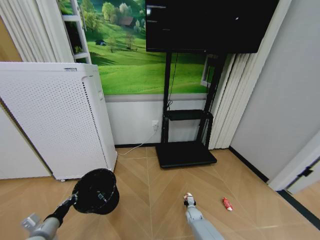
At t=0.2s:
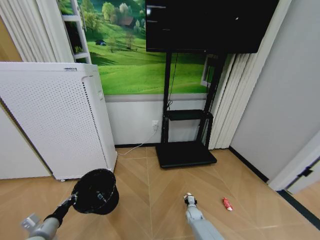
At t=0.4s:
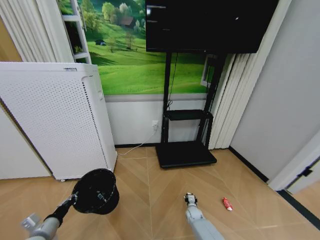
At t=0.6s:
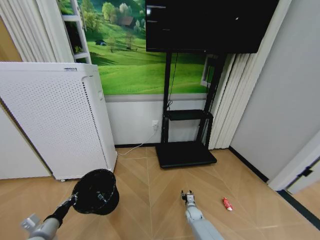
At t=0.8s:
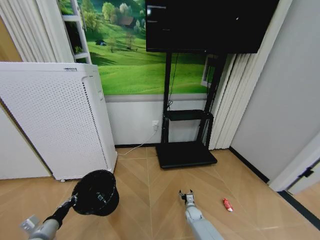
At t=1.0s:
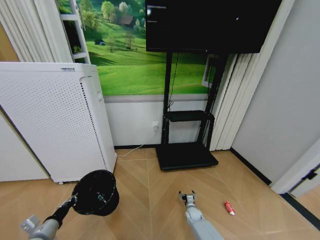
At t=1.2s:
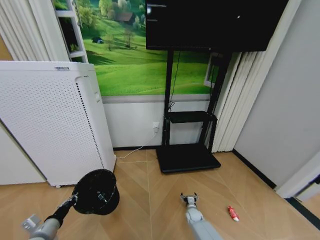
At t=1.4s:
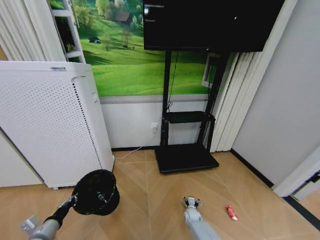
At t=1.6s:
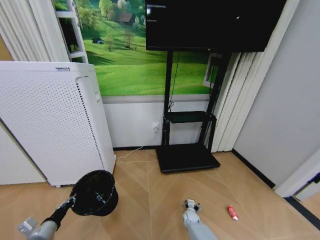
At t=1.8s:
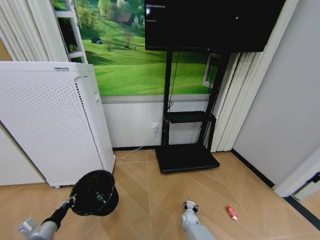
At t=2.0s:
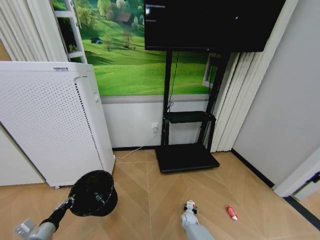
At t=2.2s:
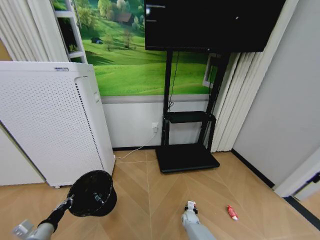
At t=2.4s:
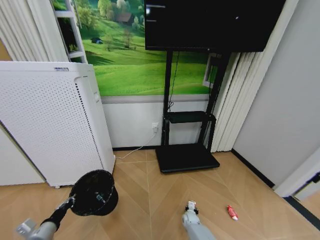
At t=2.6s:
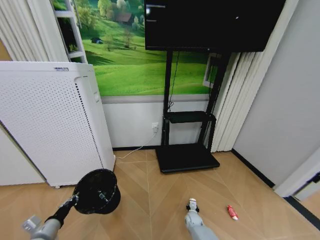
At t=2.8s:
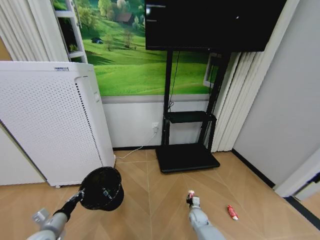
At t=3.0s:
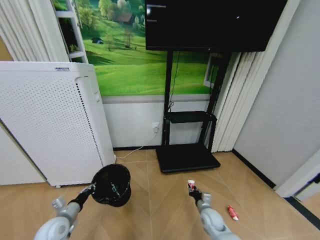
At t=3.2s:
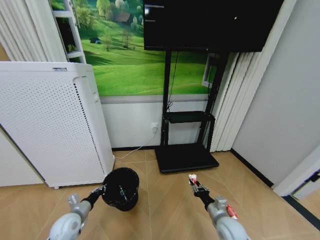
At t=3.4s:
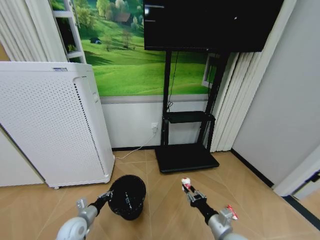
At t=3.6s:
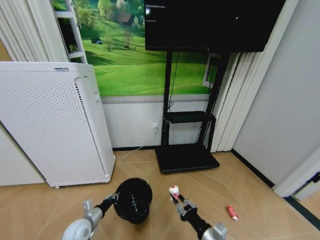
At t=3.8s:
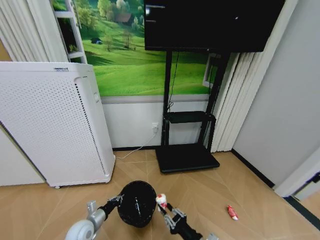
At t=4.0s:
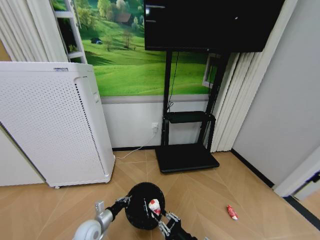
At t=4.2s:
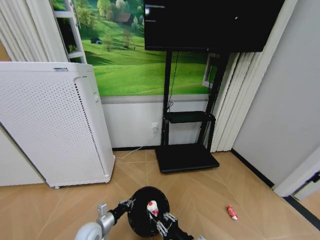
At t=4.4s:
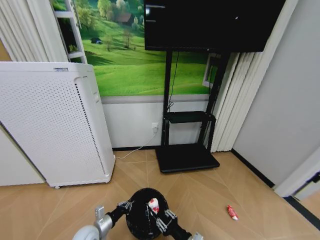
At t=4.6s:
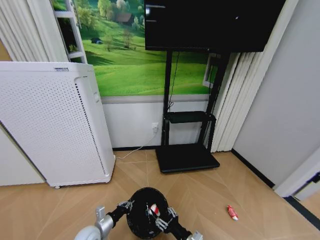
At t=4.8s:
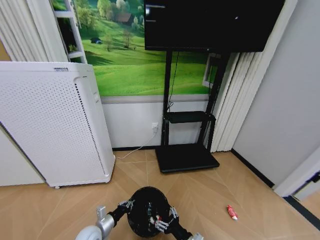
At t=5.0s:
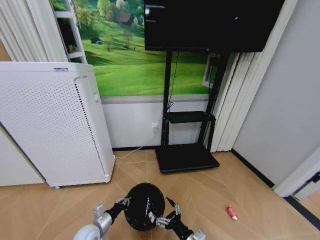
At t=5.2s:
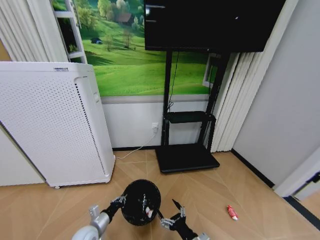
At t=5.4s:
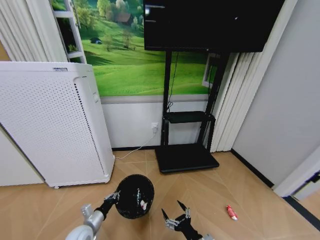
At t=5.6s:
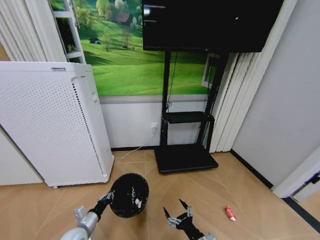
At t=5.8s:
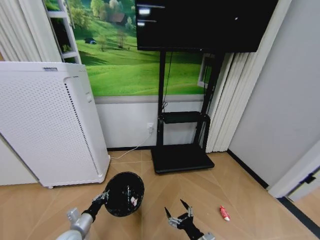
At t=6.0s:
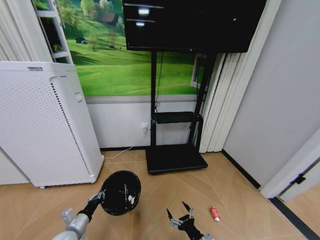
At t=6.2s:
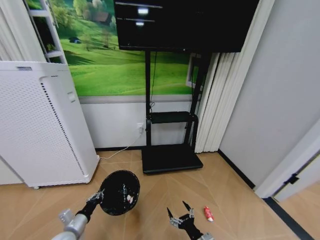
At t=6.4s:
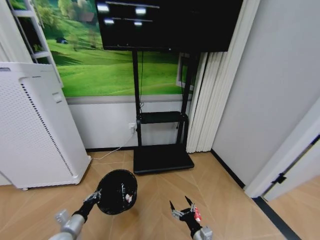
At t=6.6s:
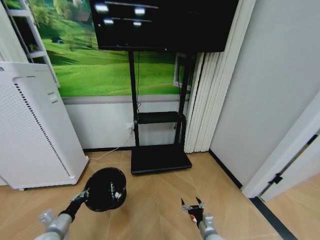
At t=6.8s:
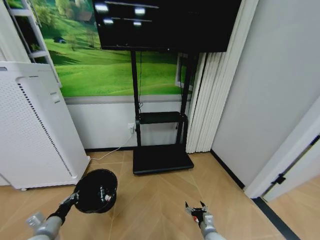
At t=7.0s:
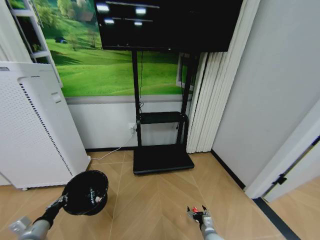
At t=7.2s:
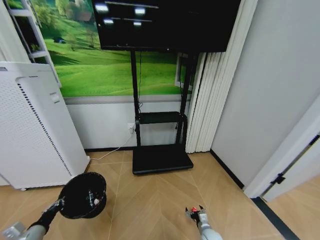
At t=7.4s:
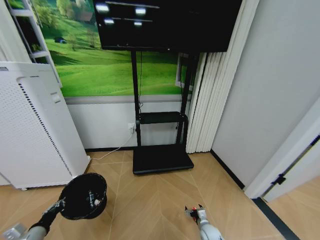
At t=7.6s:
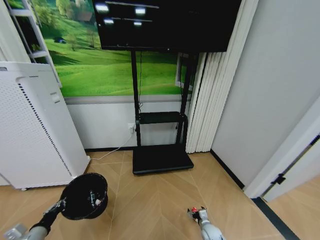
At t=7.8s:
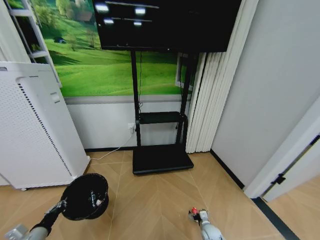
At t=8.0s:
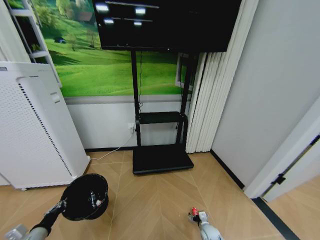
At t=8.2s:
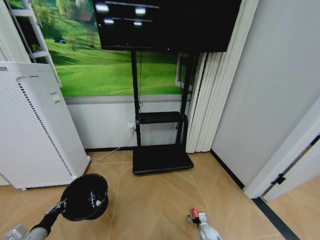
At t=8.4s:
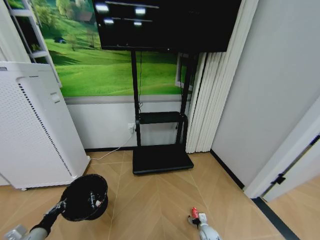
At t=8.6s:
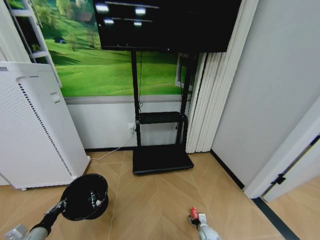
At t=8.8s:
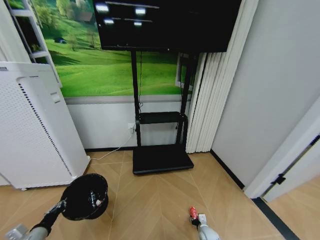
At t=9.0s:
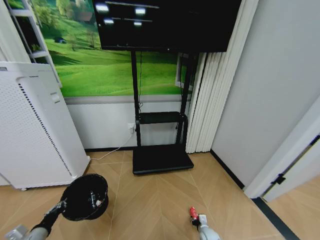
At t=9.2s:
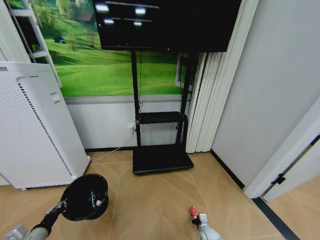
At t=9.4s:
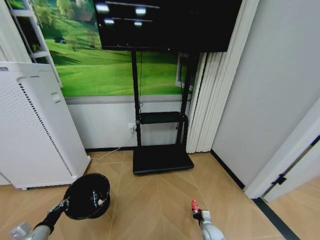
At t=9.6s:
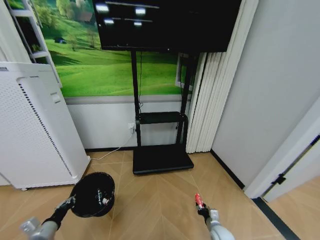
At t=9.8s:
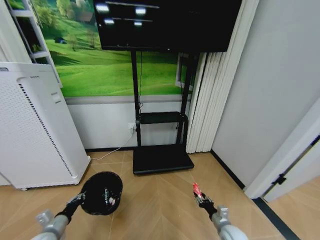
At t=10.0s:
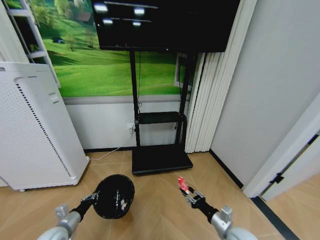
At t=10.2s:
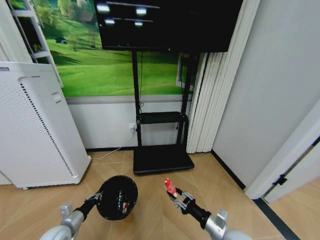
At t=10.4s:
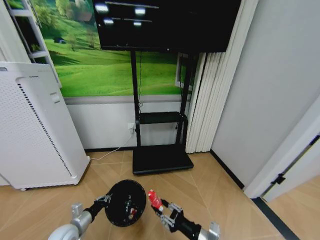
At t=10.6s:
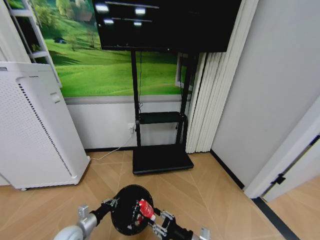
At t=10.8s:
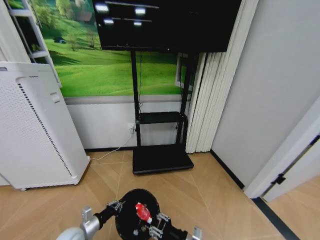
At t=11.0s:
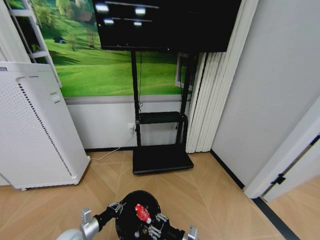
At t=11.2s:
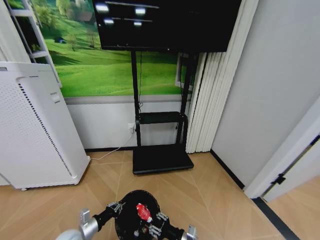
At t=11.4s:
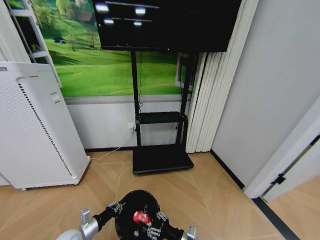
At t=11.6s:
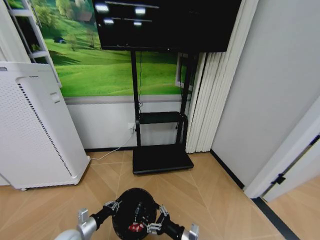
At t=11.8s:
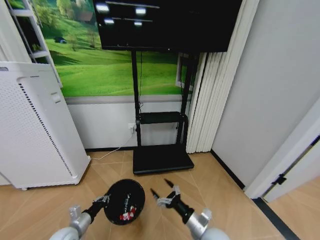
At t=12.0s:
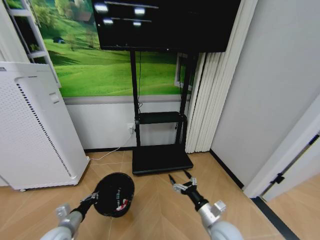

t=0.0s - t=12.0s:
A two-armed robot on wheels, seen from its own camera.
Task of the whole recording: Pick up the trash bin and place the garbage on the floor into it.
t=0.0s - t=1.6s: The right gripper opens its fingers.
t=1.6s - t=3.0s: The right gripper shifts about 15 cm upward, and closes its fingers, while the left gripper travels forward by about 5 cm.
t=3.0s - t=4.4s: The left gripper moves to the right and downward, roughly 15 cm, while the right gripper travels backward, upward and to the left by some 20 cm.
t=4.4s - t=6.0s: The right gripper opens its fingers. Meanwhile the left gripper is displaced to the left by roughly 5 cm.
t=6.0s - t=7.6s: The right gripper moves downward, forward and to the right, about 25 cm, while the left gripper moves to the left, some 10 cm.
t=9.0s - t=10.4s: The left gripper is displaced to the right and forward by roughly 10 cm, while the right gripper shifts approximately 30 cm upward.
t=10.4s - t=12.0s: The right gripper reaches some 10 cm downward, then returns, and opens.

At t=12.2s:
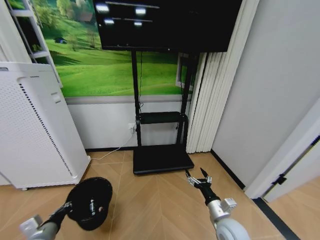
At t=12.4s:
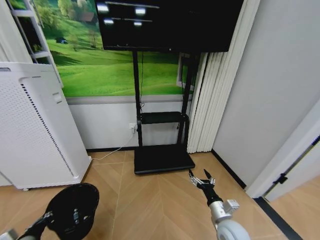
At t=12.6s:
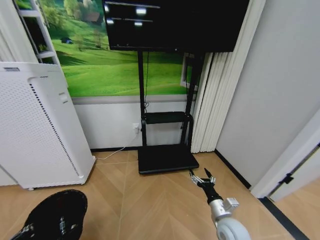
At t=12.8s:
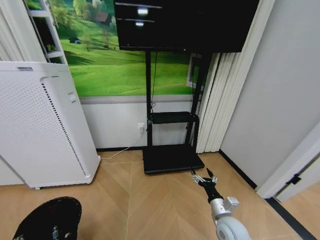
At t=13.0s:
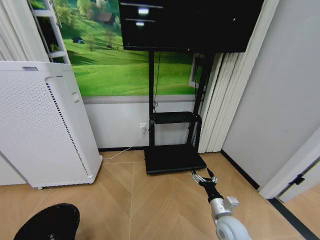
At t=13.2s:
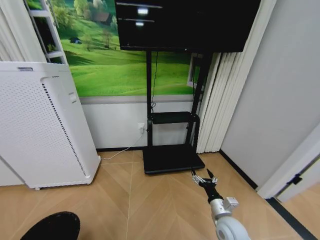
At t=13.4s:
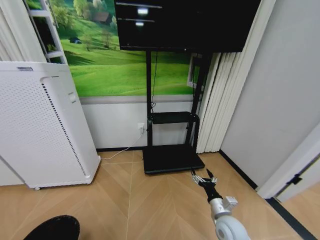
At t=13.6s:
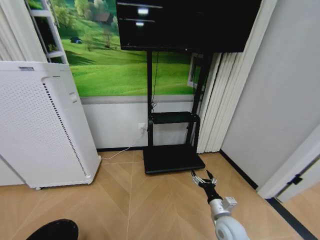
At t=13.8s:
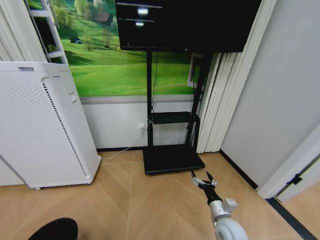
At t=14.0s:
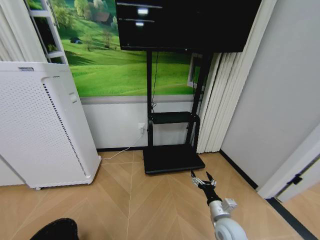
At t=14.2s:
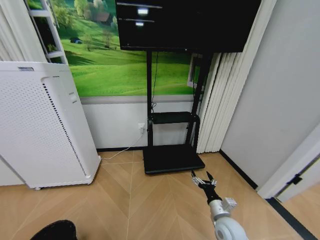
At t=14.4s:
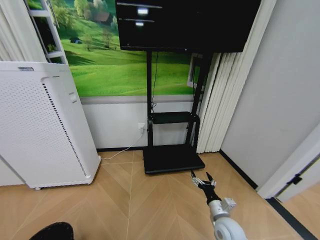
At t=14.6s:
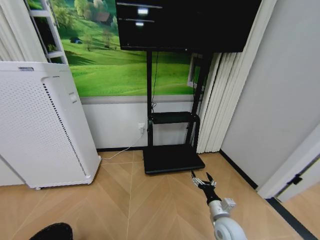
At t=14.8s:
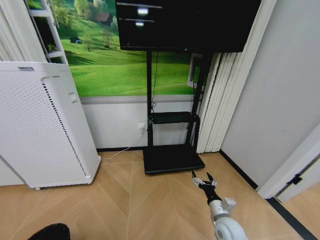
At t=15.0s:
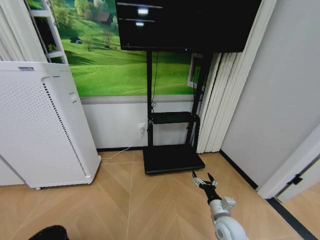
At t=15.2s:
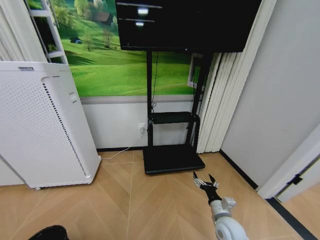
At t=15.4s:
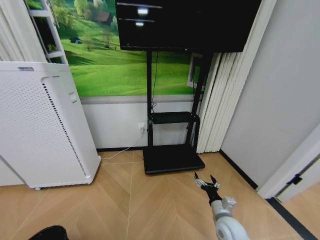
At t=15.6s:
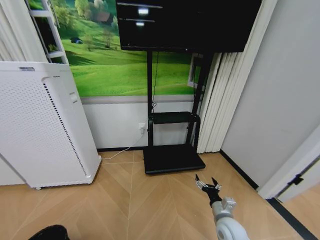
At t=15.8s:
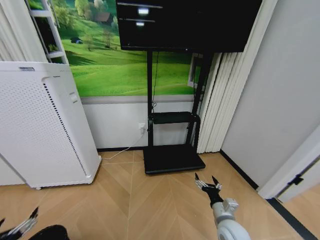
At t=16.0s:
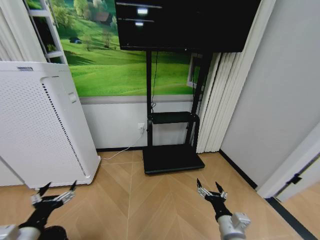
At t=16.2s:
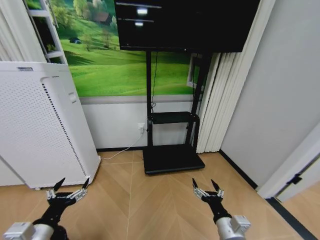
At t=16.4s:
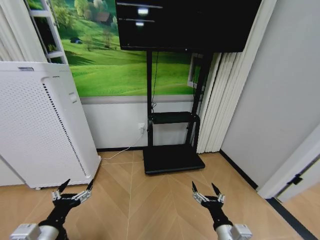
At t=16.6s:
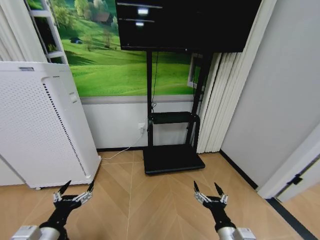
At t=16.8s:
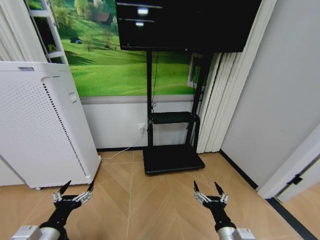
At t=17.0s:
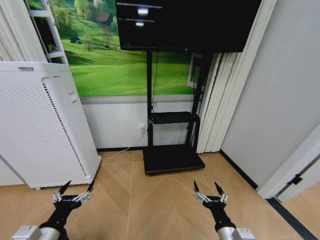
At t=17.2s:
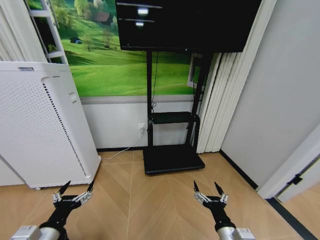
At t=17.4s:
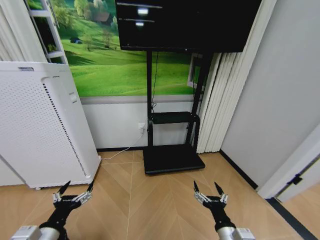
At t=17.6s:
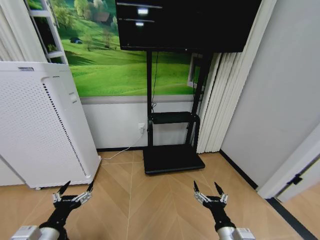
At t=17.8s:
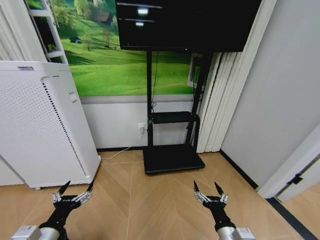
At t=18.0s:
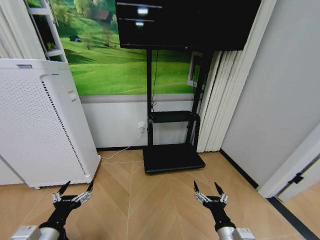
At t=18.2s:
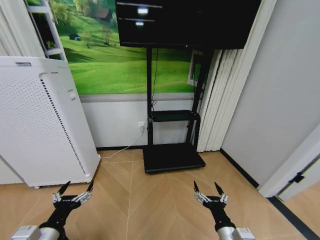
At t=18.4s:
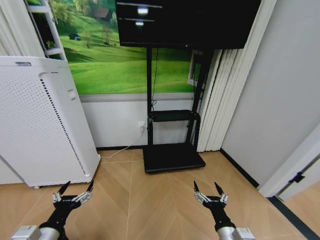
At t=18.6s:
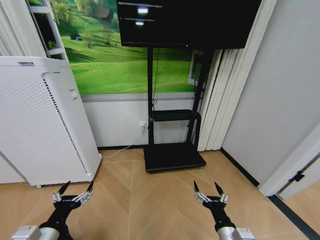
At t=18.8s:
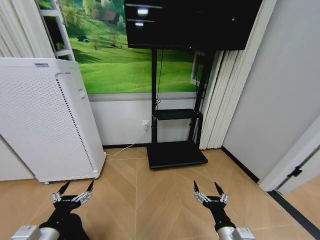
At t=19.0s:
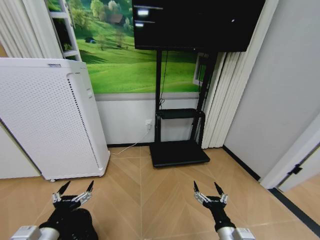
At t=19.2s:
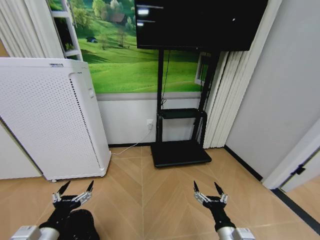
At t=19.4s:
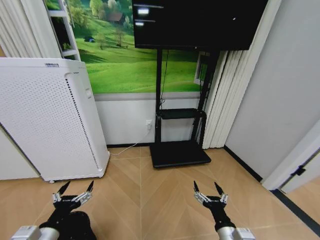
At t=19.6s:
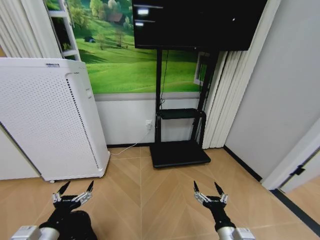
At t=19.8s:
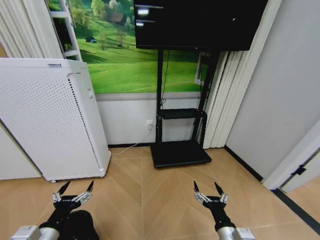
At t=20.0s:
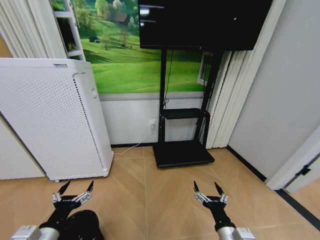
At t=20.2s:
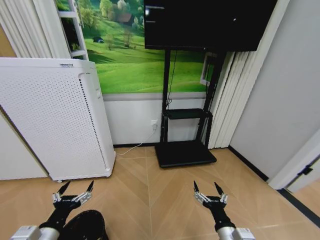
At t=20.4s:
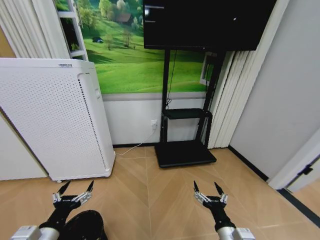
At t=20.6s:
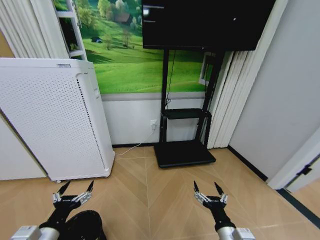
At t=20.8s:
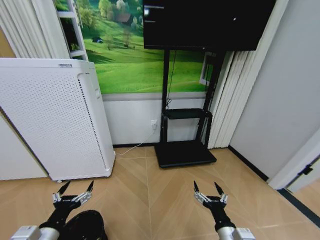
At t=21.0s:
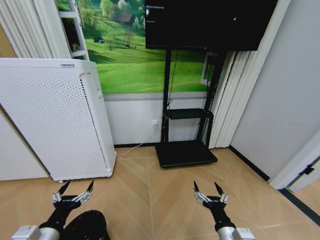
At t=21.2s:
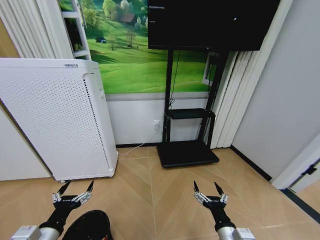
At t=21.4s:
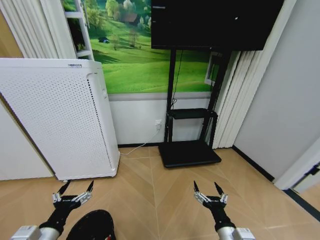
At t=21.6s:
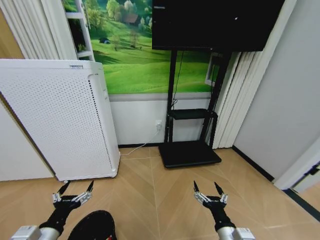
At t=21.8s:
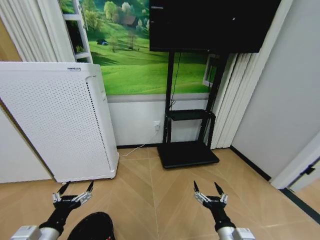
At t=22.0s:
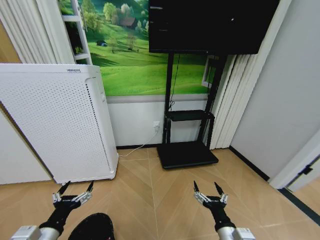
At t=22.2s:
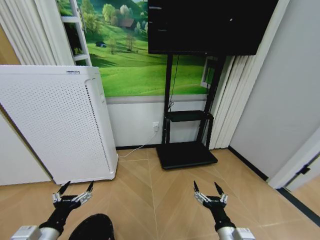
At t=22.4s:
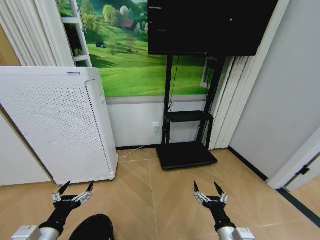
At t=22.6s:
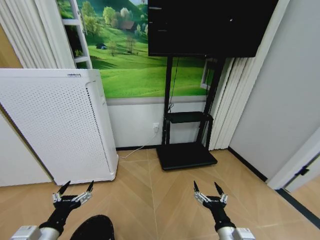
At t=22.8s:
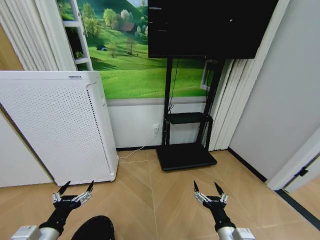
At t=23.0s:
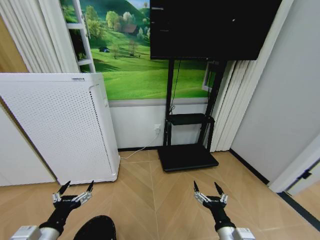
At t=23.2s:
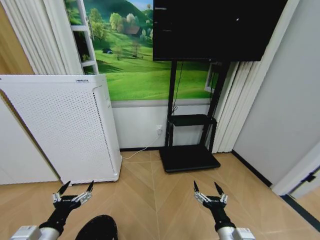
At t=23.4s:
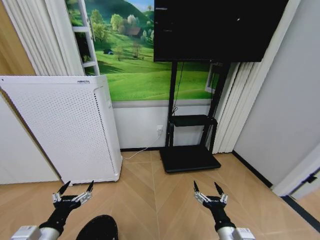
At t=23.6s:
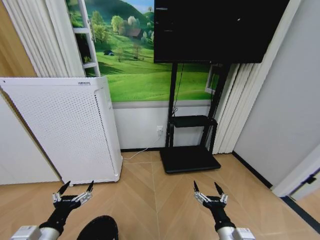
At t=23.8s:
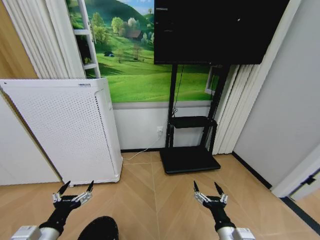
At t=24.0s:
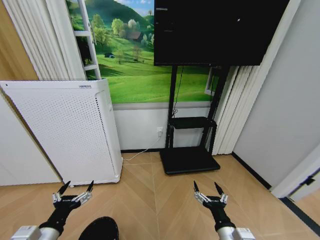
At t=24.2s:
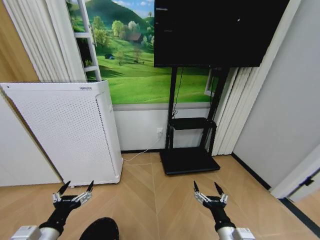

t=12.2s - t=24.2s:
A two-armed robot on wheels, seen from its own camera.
Task of the whole recording: Pick up the trash bin and place the garbage on the floor into it.
t=12.2s - t=13.8s: The left gripper heads backward, to the left and downward, covering about 20 cm.
t=13.8s - t=15.2s: The left gripper opens.
t=15.2s - t=16.6s: The left gripper moves upward, to the right and forward, some 25 cm, and opens up; the right gripper heads backward, upward and to the left, covering about 15 cm.
t=16.6s - t=18.2s: Neither gripper changes place.
t=21.2s - t=22.6s: Neither gripper changes place.
